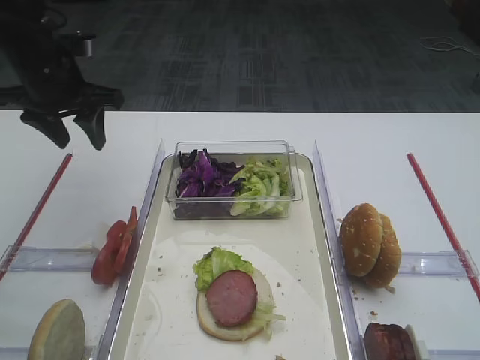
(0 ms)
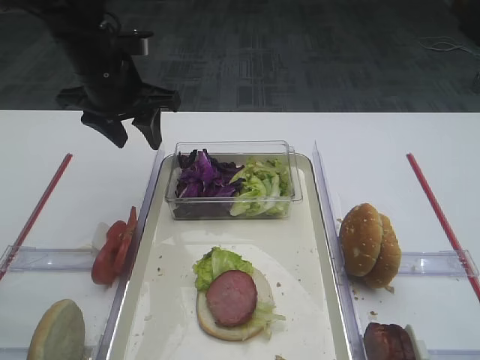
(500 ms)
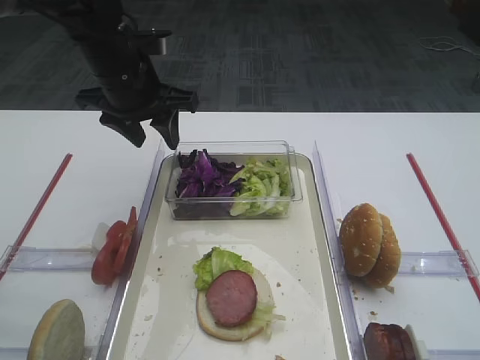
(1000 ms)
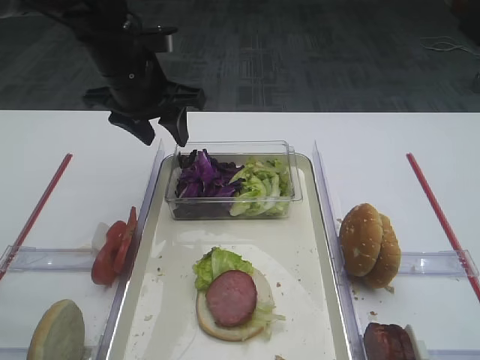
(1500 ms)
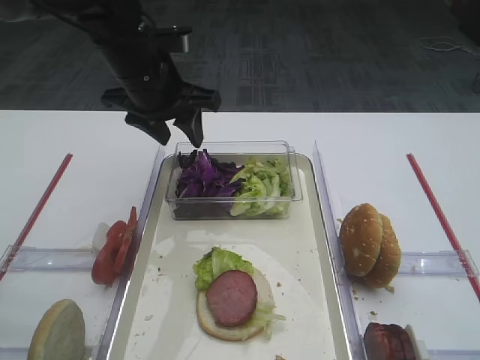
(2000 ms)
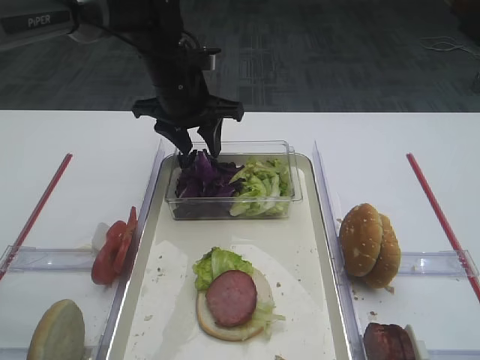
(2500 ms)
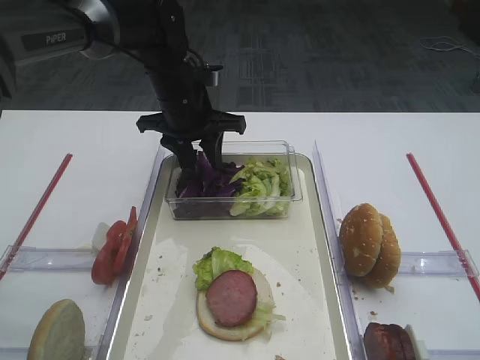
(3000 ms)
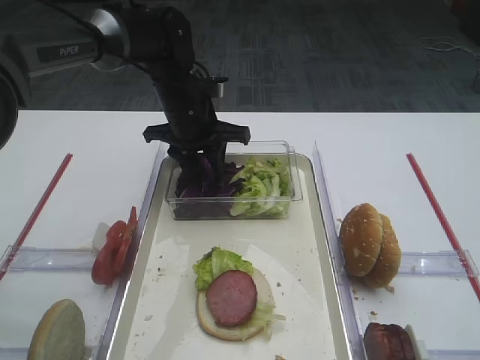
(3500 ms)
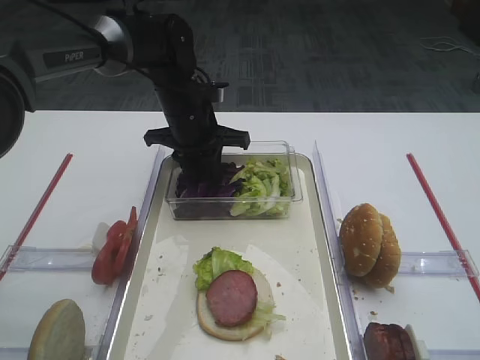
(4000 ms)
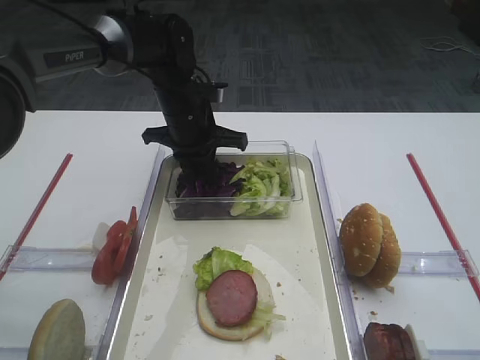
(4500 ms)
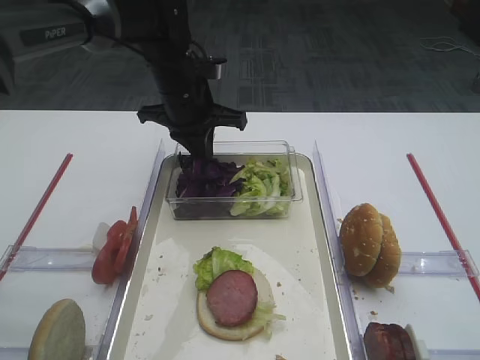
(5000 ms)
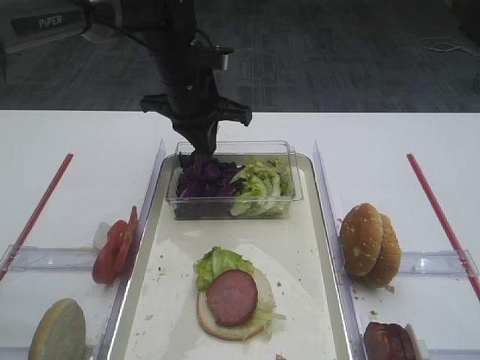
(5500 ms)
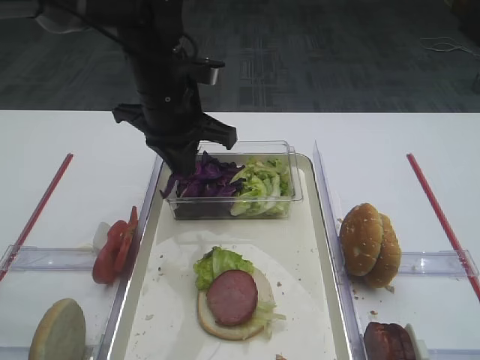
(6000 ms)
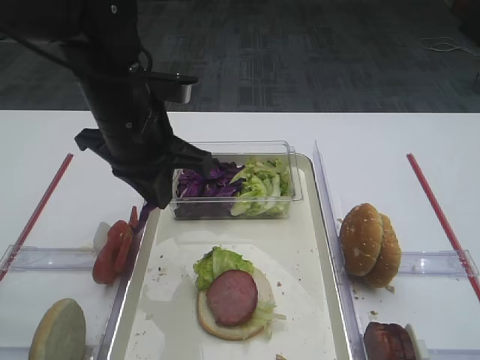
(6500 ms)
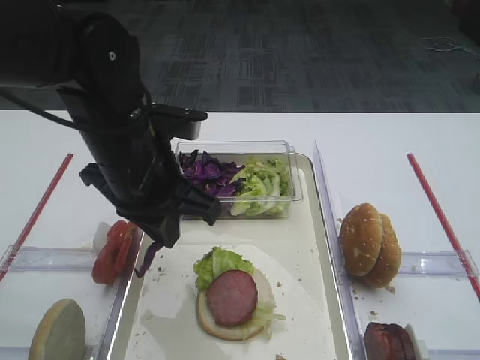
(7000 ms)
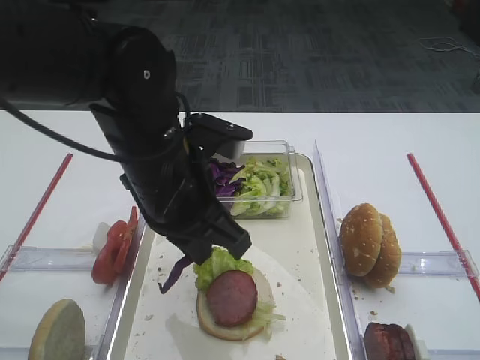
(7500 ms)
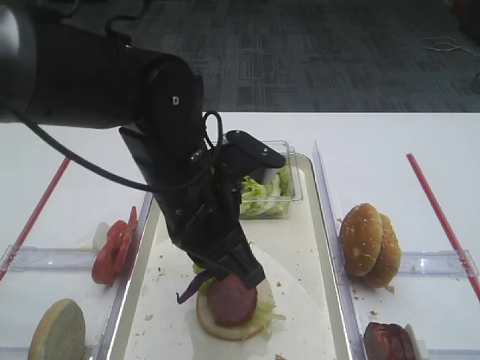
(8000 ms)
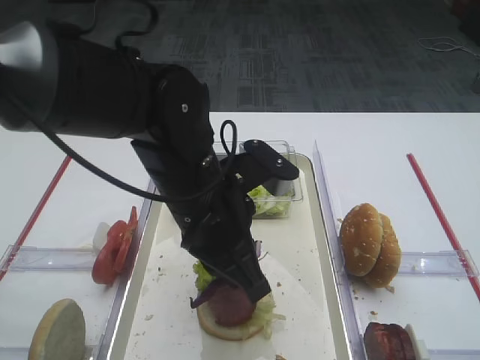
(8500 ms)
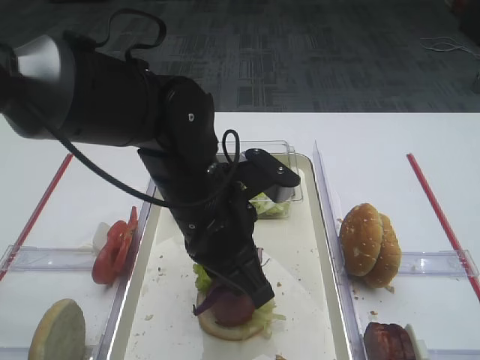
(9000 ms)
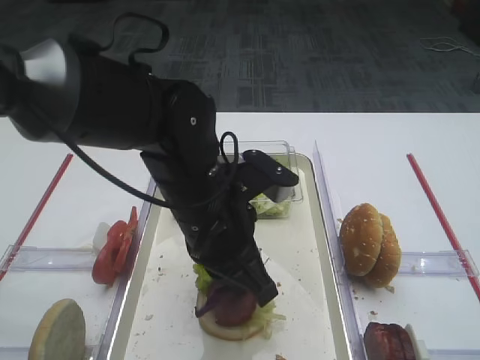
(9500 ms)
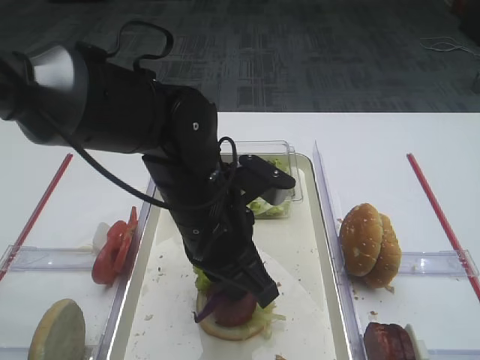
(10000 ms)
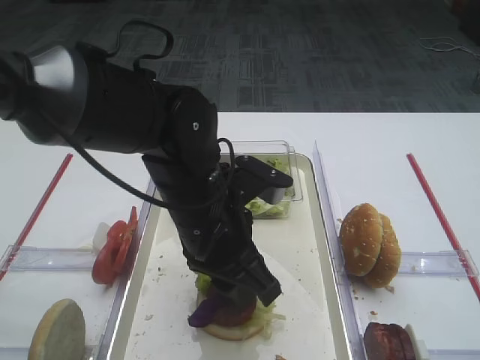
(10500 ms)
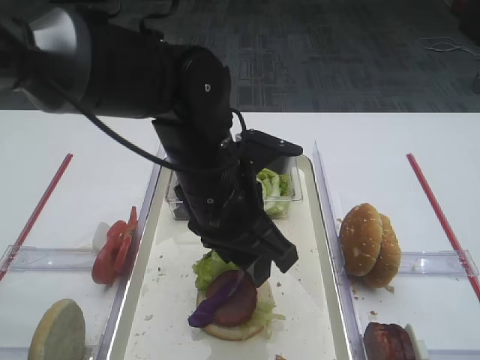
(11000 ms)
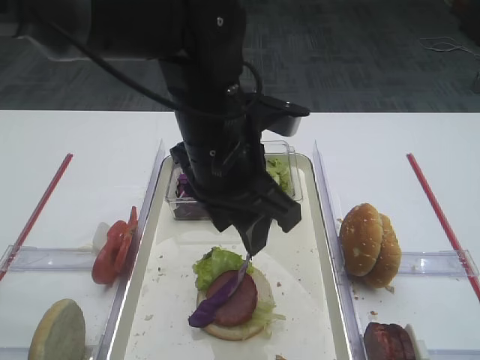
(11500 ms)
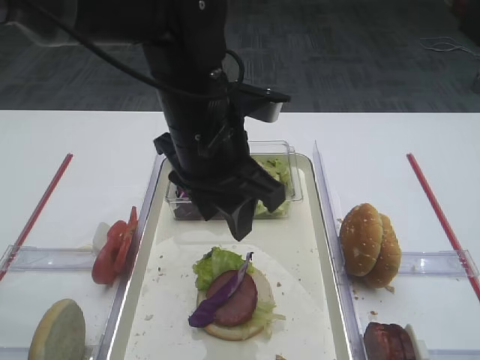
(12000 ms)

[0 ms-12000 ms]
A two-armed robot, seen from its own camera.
Step, 0 ms to 5000 ms: Pick up the purple cabbage with the left gripper.
Step, 5500 ms to 11500 ms: Place the purple cabbage on the cutlet with the left gripper.
0 ms to 2000 ms: The left gripper shifts about 10 cm to the right.
2000 ms to 4000 ms: The left gripper travels downward by roughly 10 cm, and closes up.
4000 ms to 6000 ms: The left gripper travels upward and backward by about 10 cm, and closes its fingers.
6000 ms to 8000 ms: The left gripper heads backward, covering about 15 cm.
8000 ms to 10000 ms: The grippers move only a little.
10000 ms to 12000 ms: The left gripper travels upward by about 10 cm, and opens.

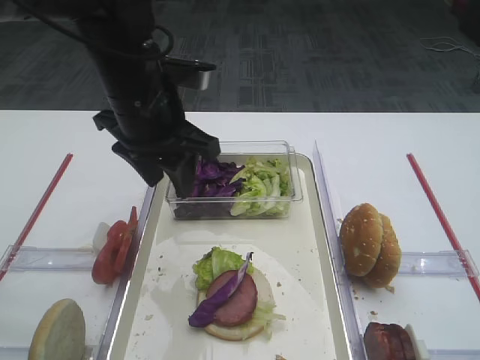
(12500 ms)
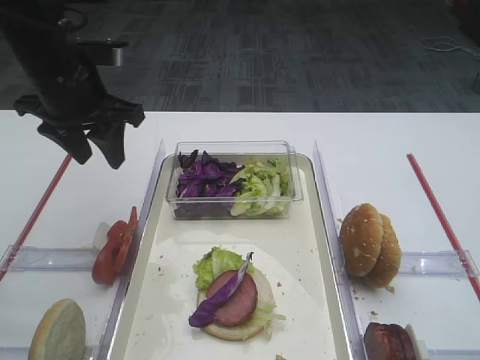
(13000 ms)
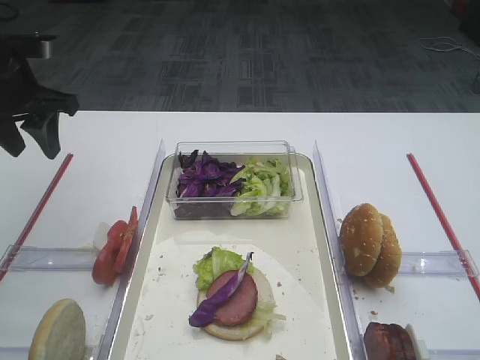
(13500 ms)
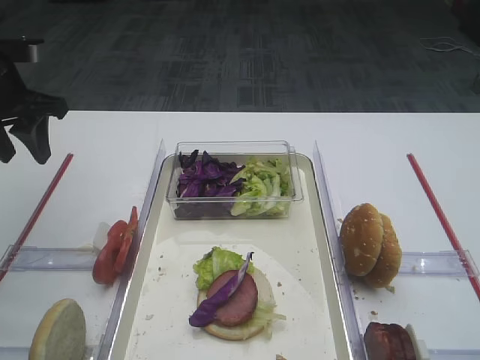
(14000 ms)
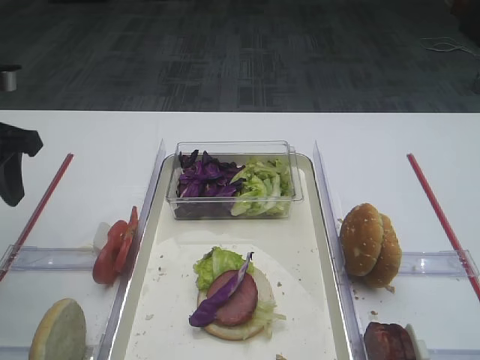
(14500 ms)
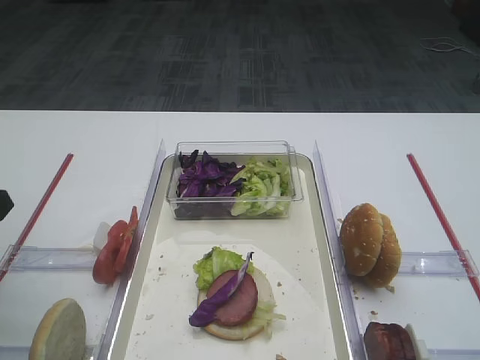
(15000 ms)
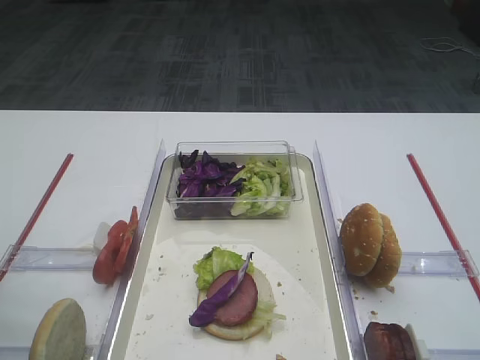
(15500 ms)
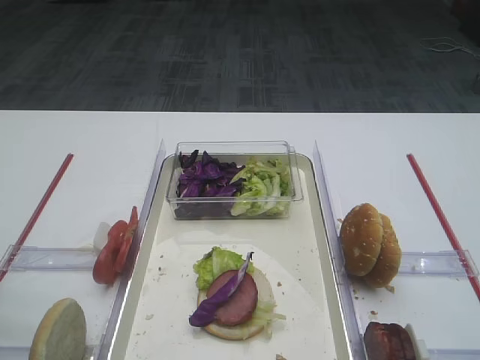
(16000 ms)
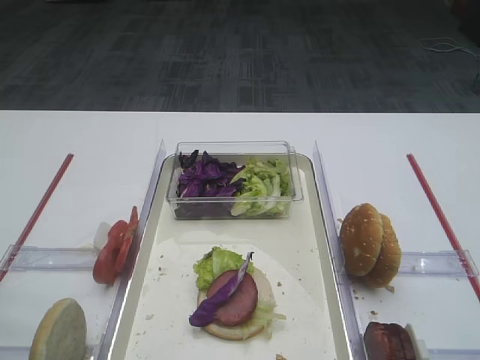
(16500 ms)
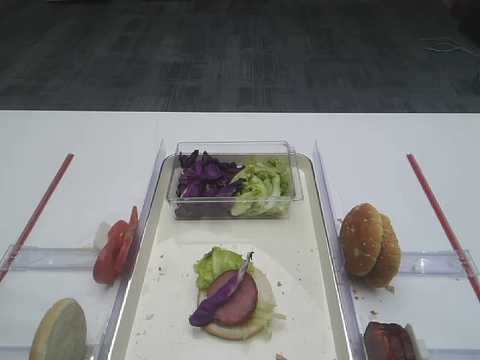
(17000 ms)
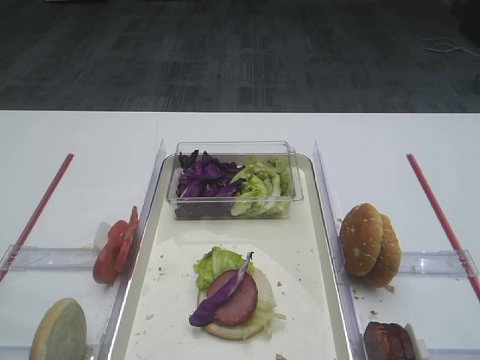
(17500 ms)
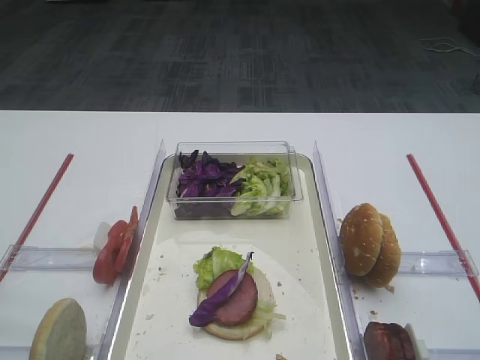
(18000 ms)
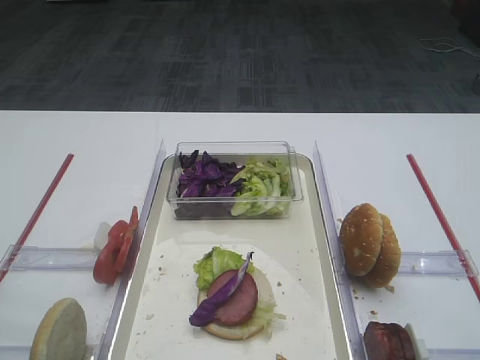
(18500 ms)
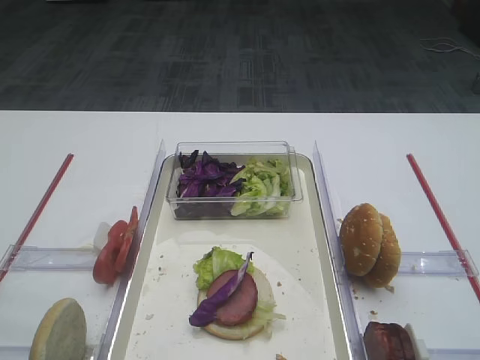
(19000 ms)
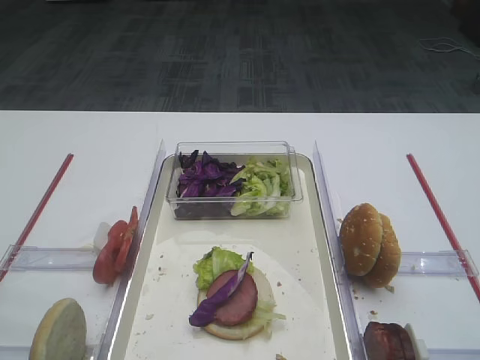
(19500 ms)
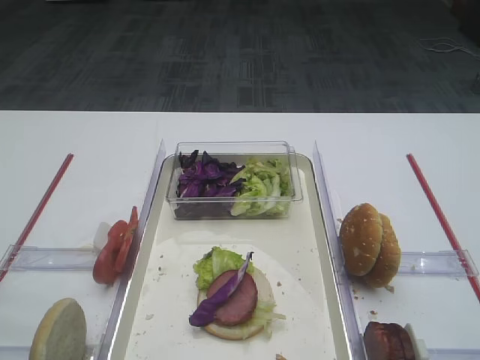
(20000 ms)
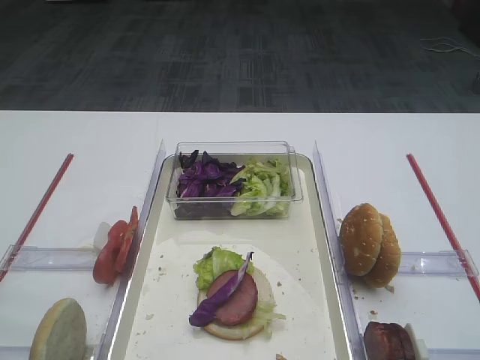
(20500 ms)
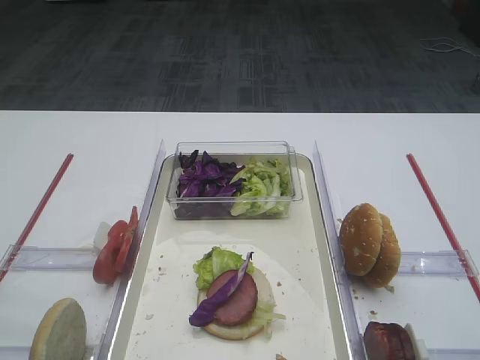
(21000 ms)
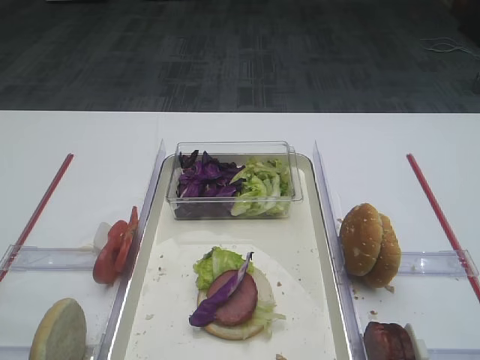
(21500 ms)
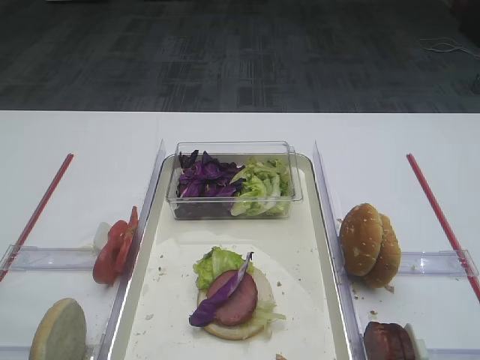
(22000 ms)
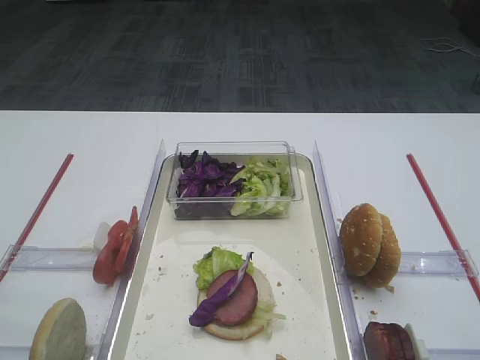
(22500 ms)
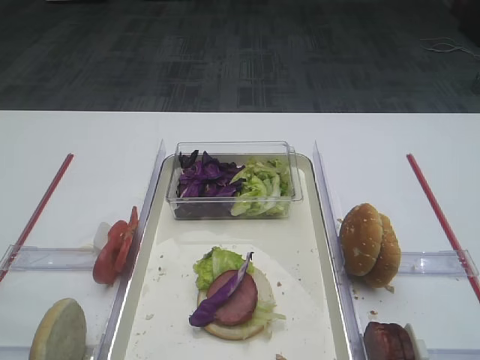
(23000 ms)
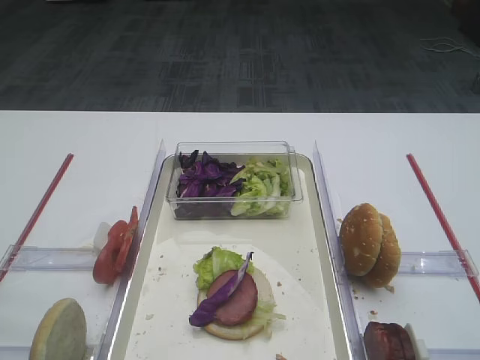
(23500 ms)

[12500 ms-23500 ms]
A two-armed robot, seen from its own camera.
12500 ms to 14500 ms: The left gripper goes some 20 cm to the left.
14500 ms to 16000 ms: The left gripper shifts some 20 cm backward.
20000 ms to 23500 ms: The two grippers keep their place.

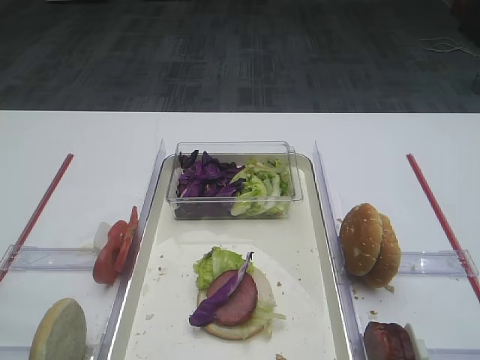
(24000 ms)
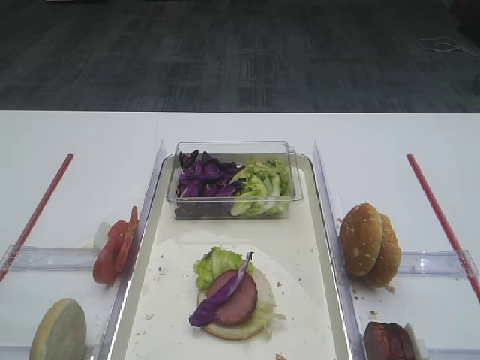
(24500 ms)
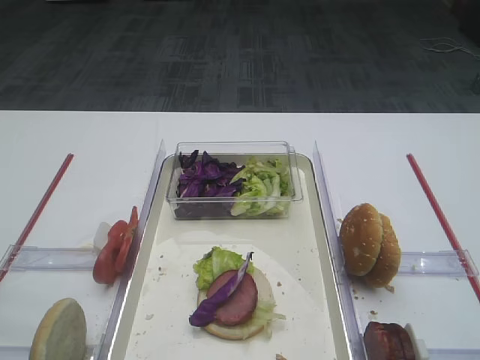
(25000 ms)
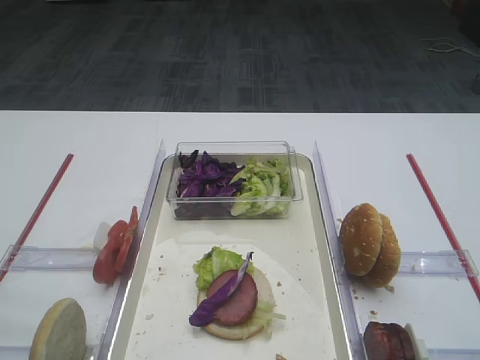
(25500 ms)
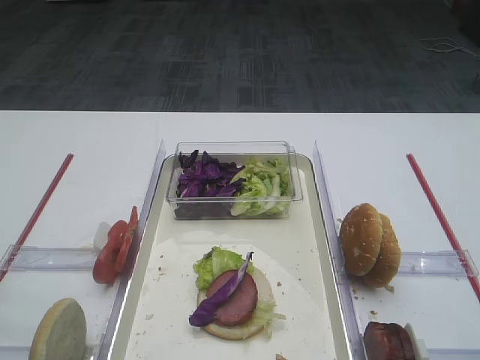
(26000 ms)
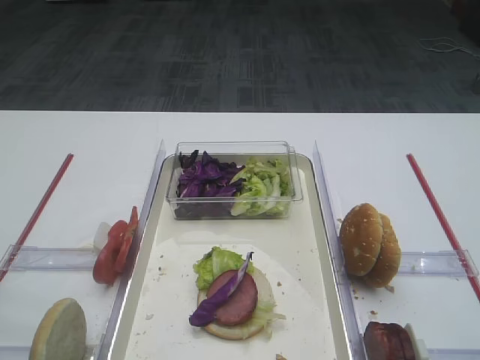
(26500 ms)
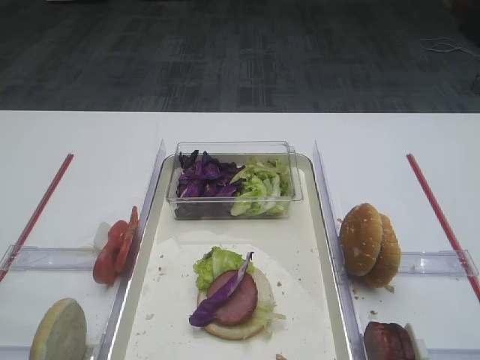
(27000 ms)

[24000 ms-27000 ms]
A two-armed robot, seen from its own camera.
24000 ms to 27000 ms: The two grippers keep their place.
